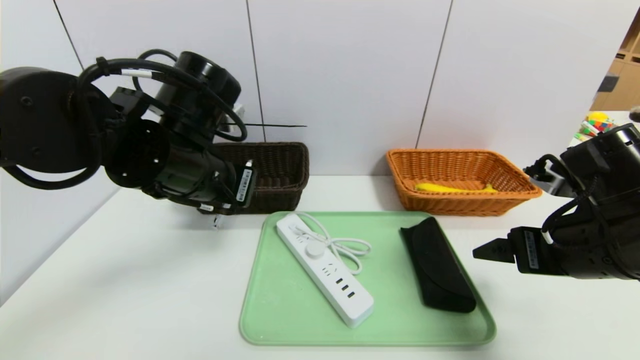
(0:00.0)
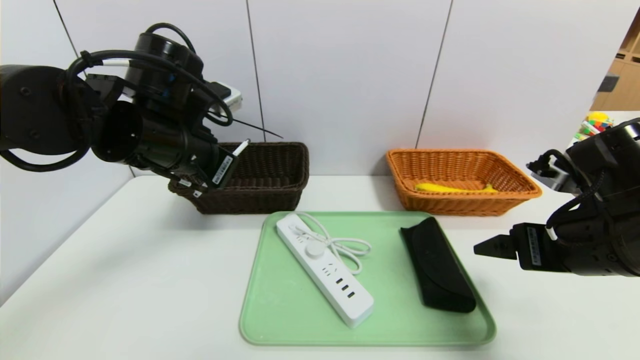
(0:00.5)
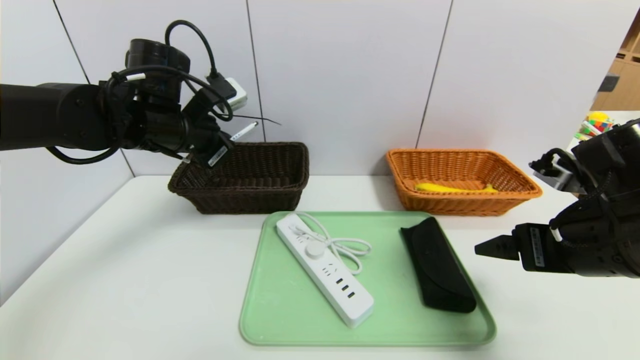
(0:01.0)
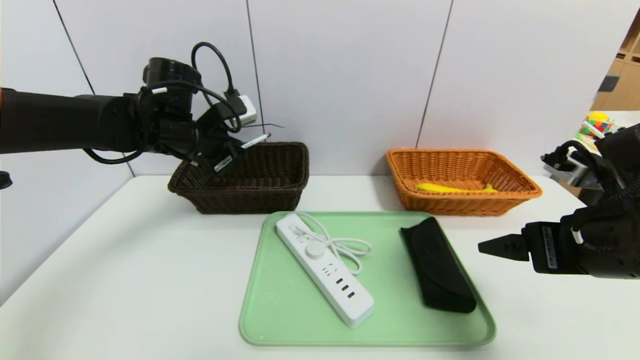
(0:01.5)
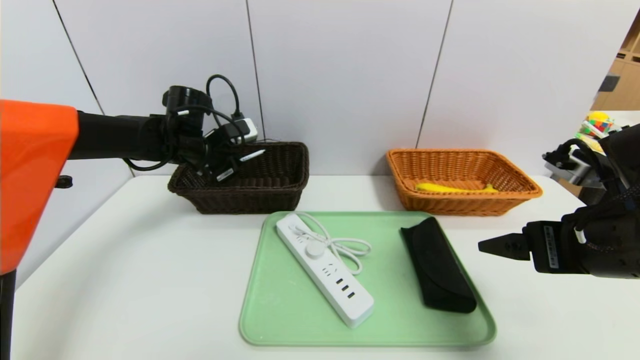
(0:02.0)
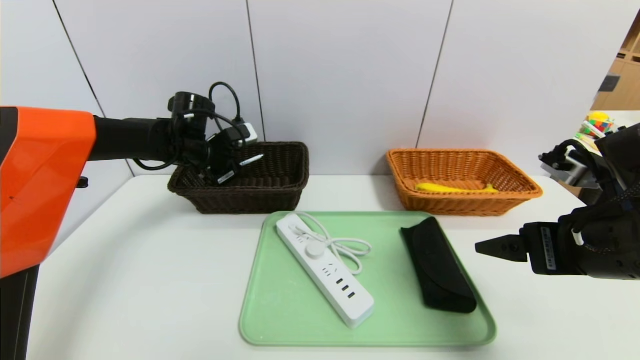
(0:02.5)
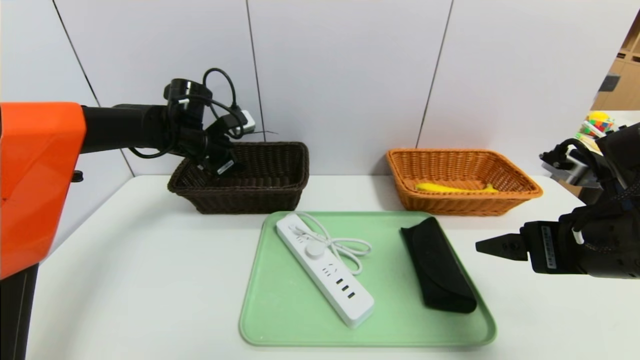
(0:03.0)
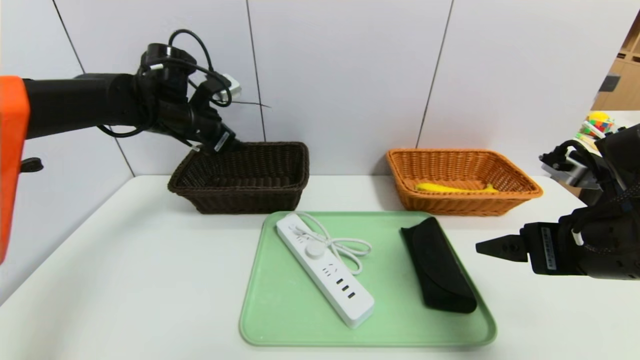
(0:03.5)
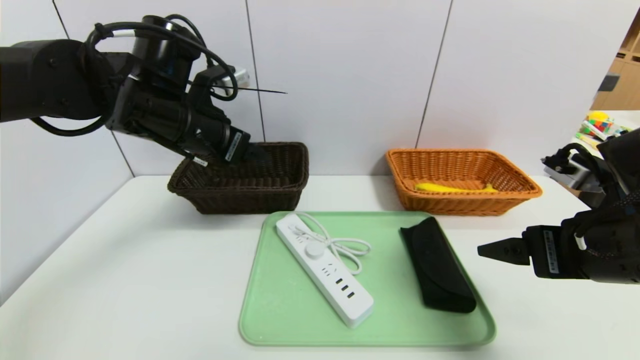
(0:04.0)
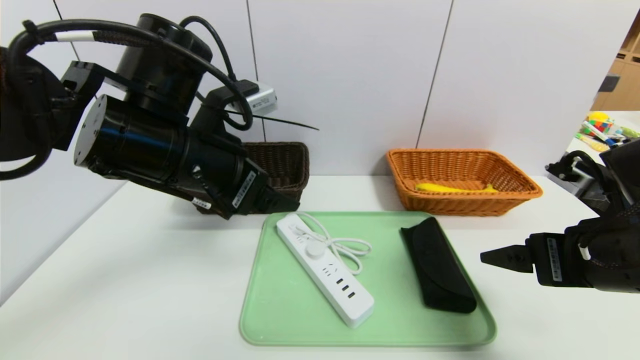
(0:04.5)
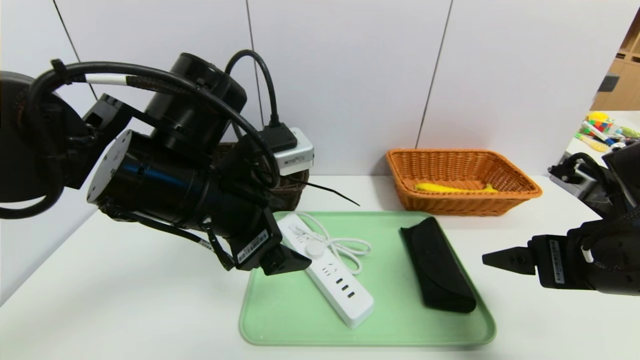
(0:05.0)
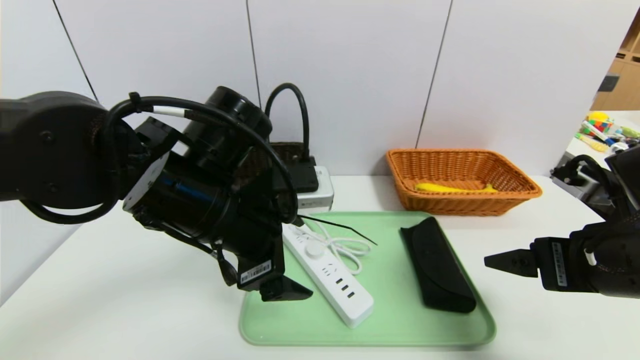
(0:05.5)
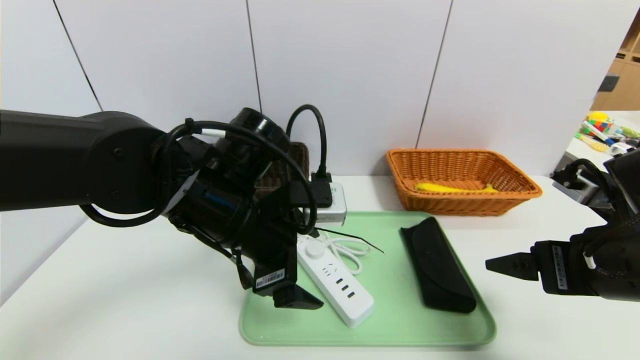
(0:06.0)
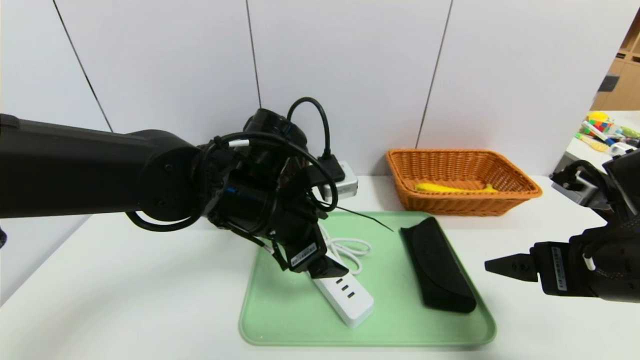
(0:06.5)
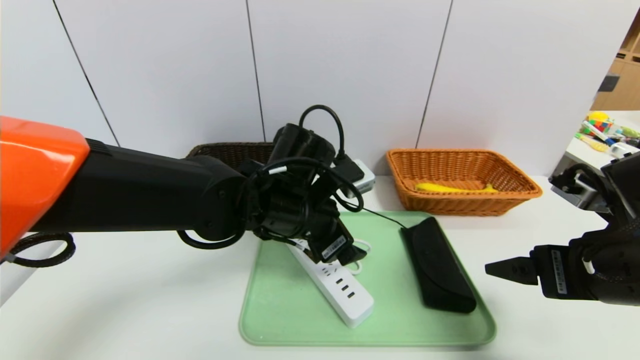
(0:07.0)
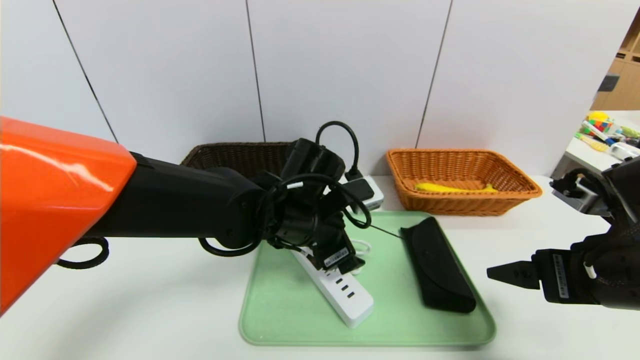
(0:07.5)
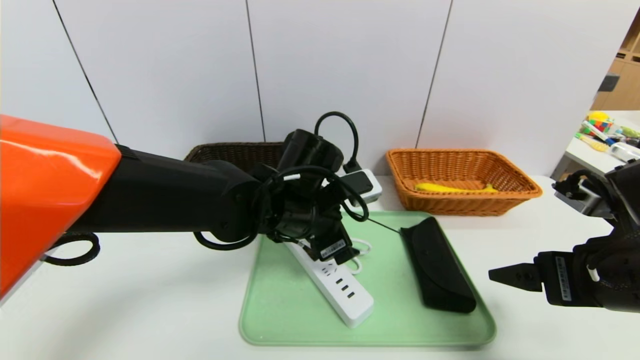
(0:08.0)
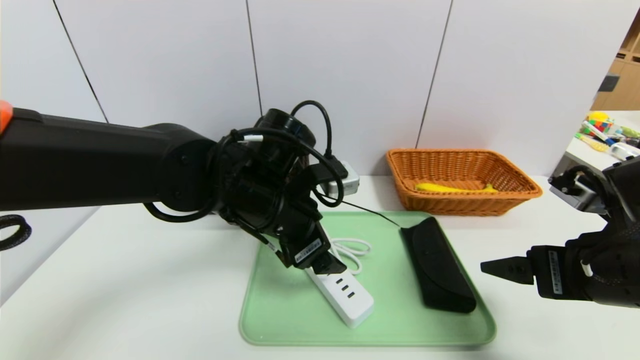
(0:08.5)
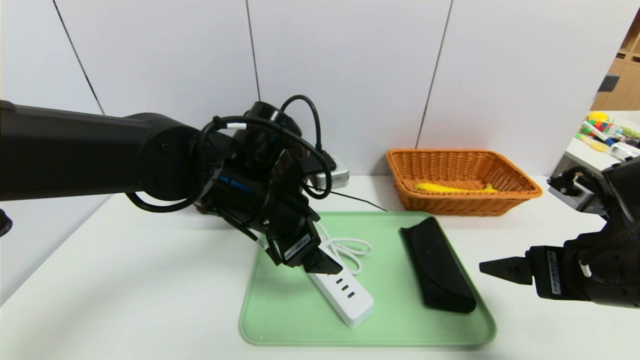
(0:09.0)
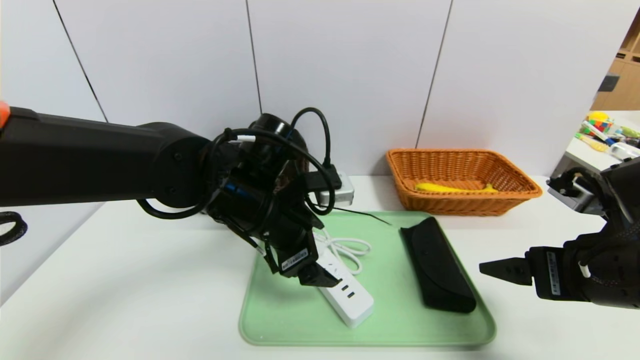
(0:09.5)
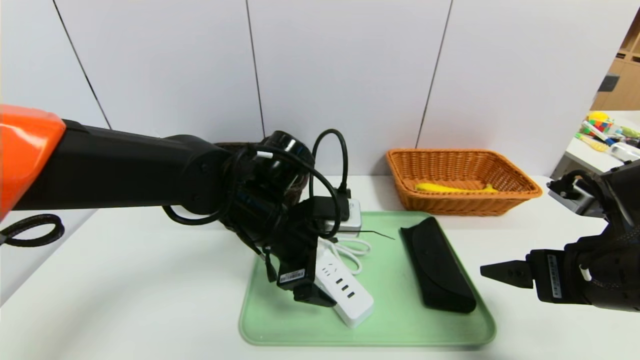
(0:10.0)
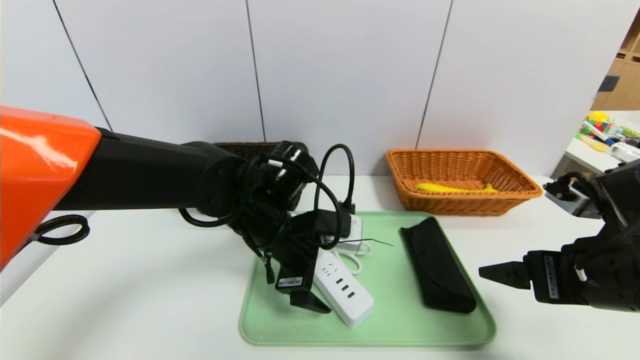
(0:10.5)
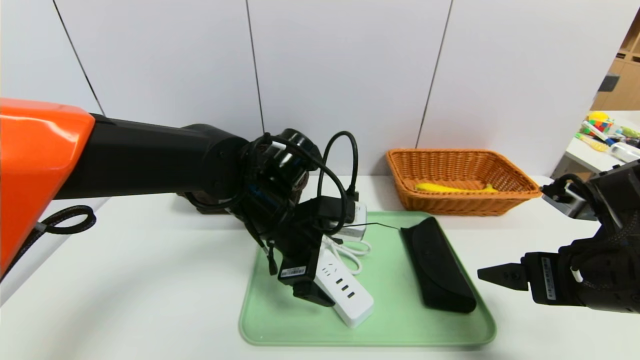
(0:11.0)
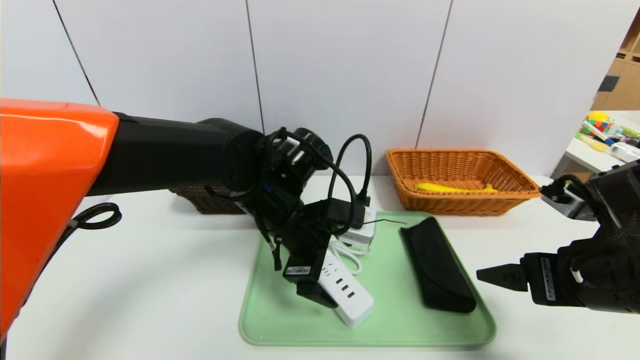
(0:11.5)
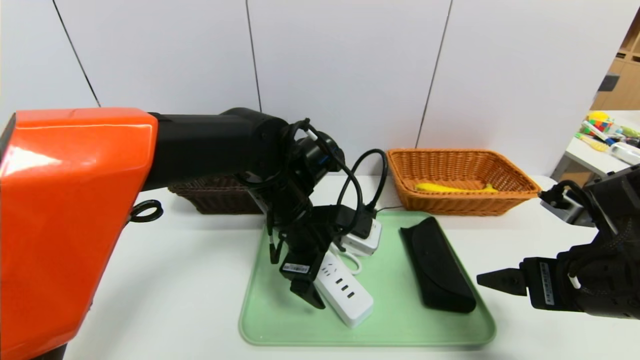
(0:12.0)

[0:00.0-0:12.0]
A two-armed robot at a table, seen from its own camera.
Task of the whole recording: place the food in the right basket with the right gripper, and place the non food items in the left basket with the left gripper.
Step, 0:00.0 to 0:03.5: Grasp the ballpoint pen and put it in the left basket.
0:00.0 to 0:02.0: The left gripper heads forward and to the left, covering about 20 cm.
0:02.0 to 0:04.0: The left gripper shifts roughly 15 cm backward and upward, and opens up.
0:04.0 to 0:06.0: The left gripper heads to the right, downward and backward, covering approximately 15 cm.
0:06.0 to 0:08.0: The left gripper shifts roughly 5 cm to the right.

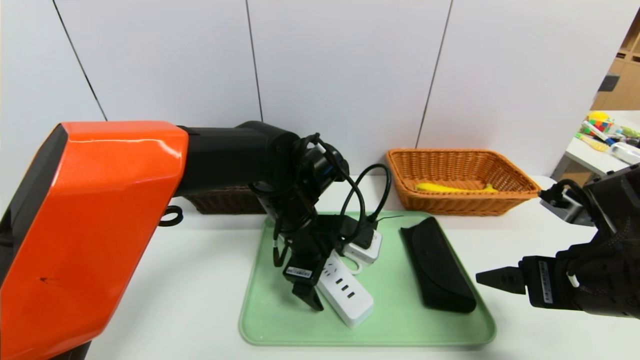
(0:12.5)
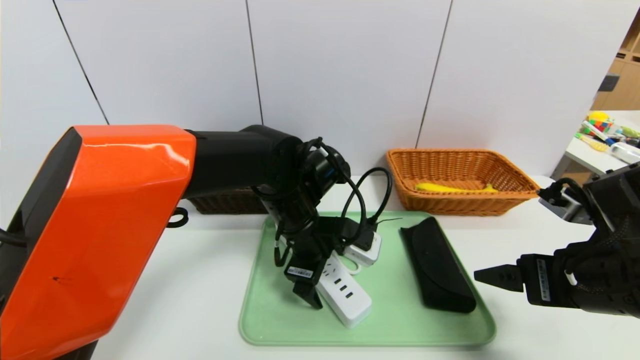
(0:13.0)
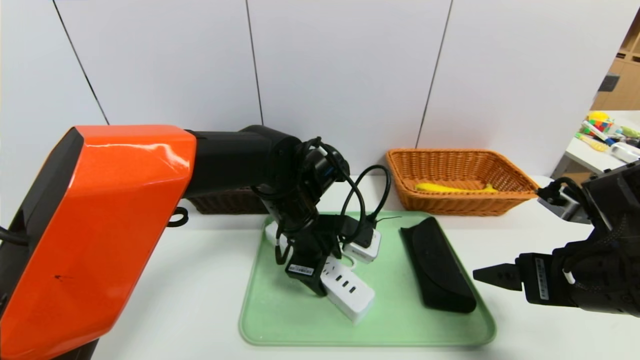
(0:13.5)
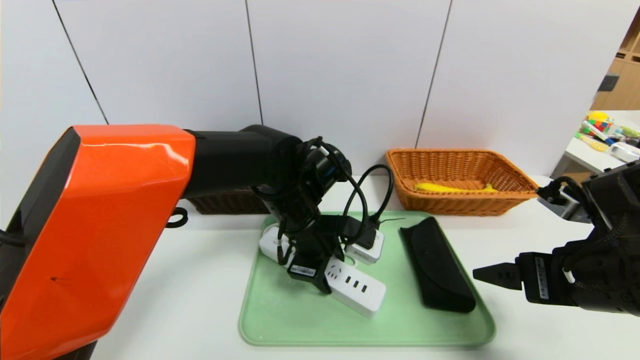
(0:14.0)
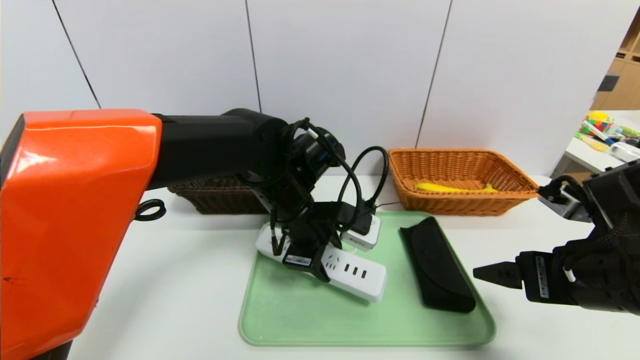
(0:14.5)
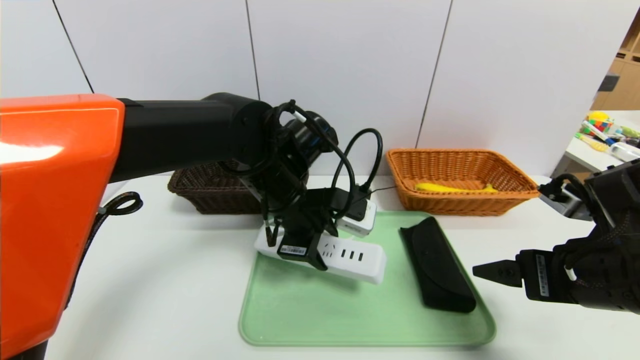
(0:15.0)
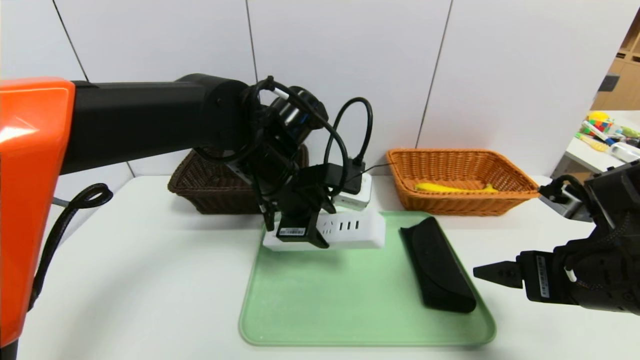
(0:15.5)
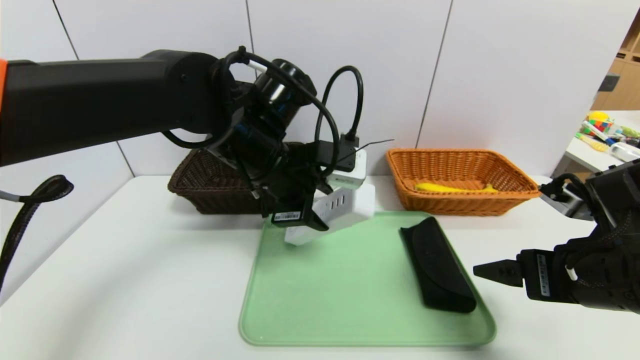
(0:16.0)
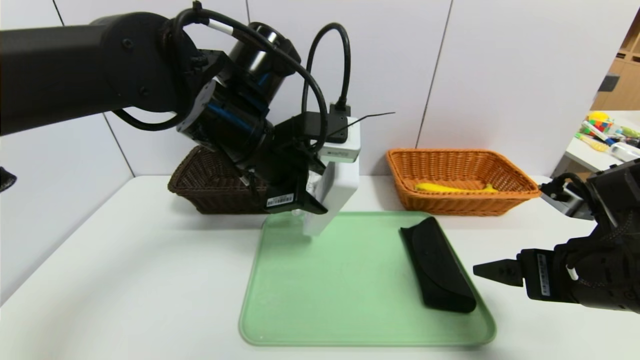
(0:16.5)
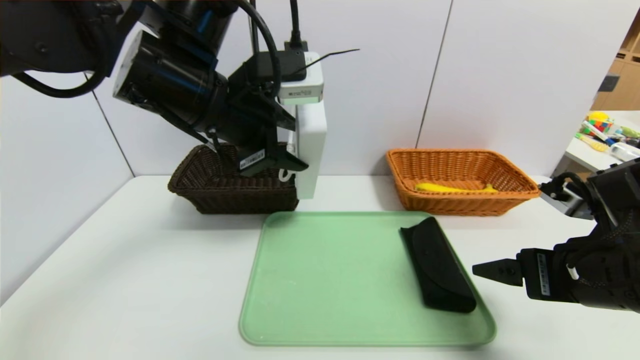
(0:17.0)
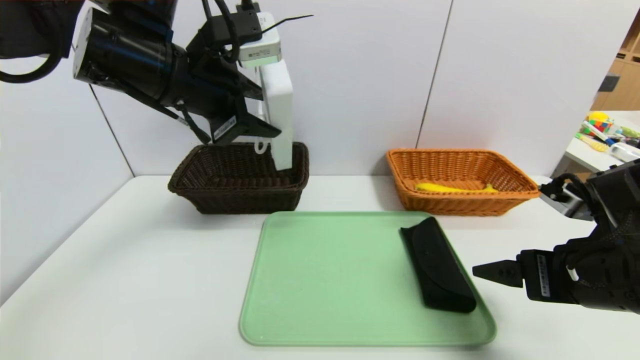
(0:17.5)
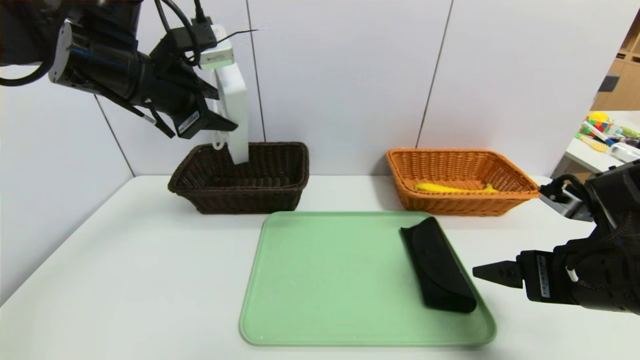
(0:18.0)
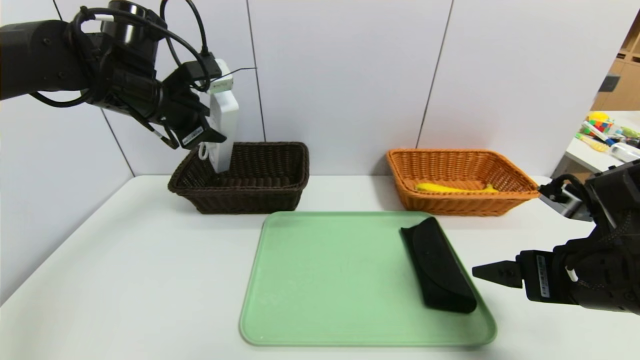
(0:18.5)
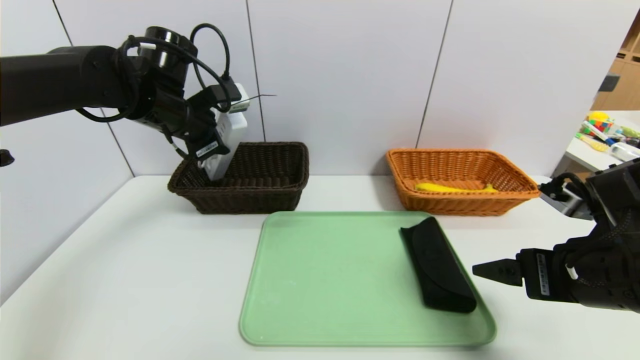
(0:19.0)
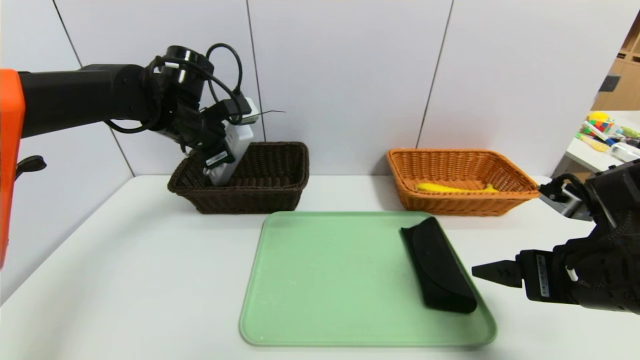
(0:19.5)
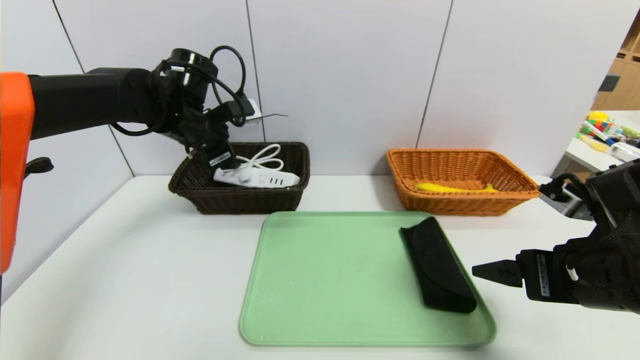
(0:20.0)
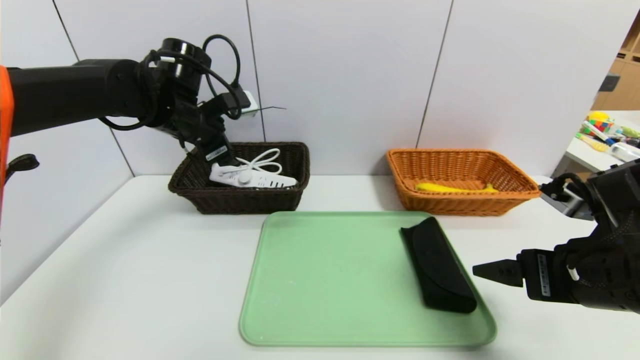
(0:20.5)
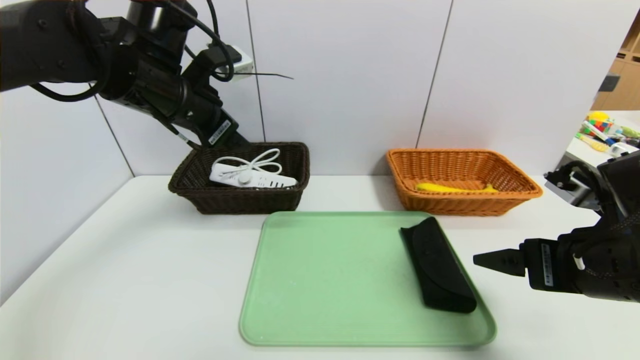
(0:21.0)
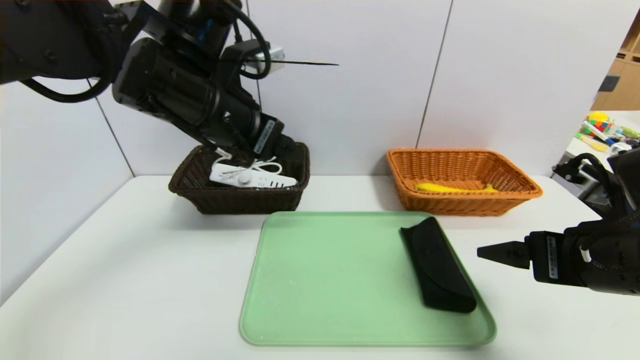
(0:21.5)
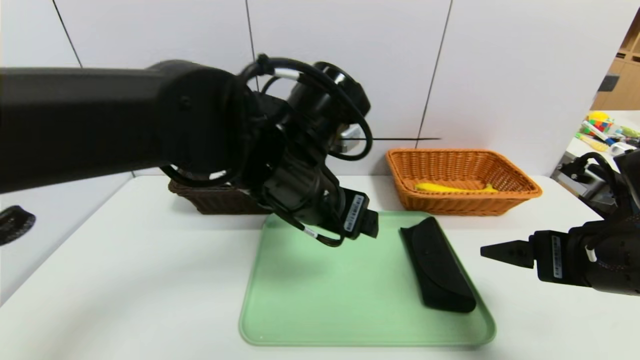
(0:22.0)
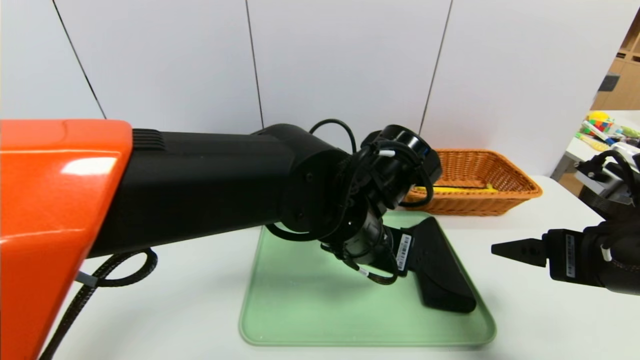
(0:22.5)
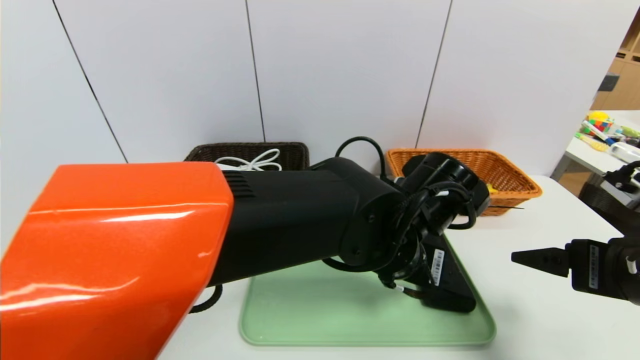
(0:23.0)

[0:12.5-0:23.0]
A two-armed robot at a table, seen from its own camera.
Task of the whole recording: place the food in the right basket with the right gripper, and place the non food items in the left basket with the left gripper.
Step, 0:12.5 to 0:21.5: Grasp the power strip and put it in the left basket.
0:12.5 to 0:14.5: The left gripper closes up.
0:14.5 to 0:16.5: The left gripper travels upward by some 10 cm.
0:16.5 to 0:19.0: The left gripper travels to the left and forward by some 15 cm.
0:19.0 to 0:21.0: The left gripper shifts approximately 5 cm backward, and opens up.
0:21.0 to 0:23.0: The left gripper is displaced to the right and downward by roughly 30 cm.
